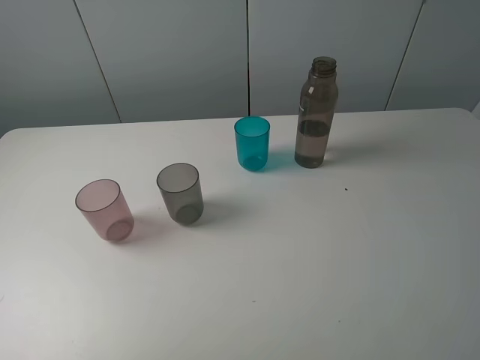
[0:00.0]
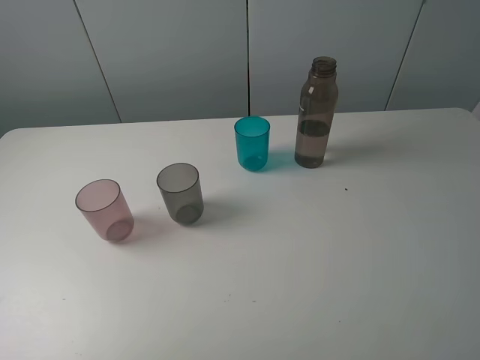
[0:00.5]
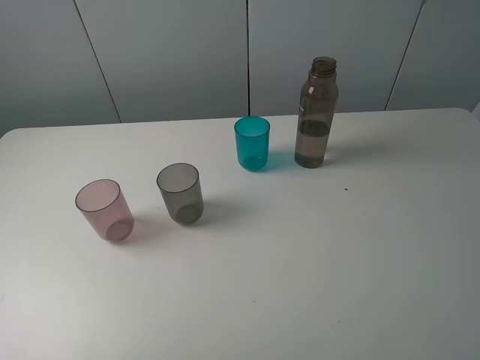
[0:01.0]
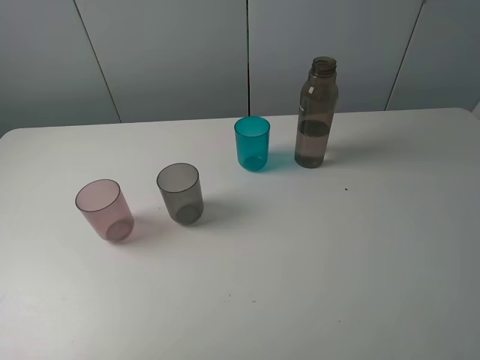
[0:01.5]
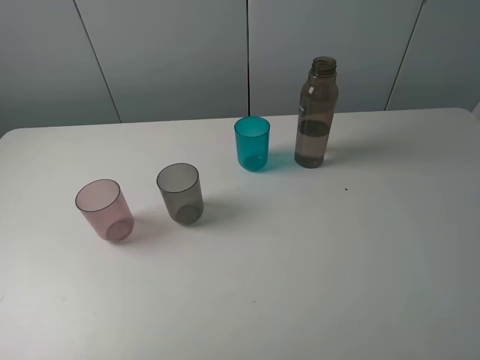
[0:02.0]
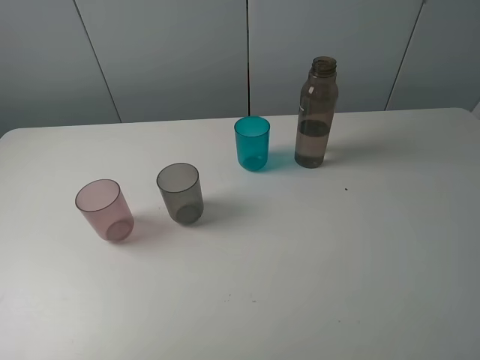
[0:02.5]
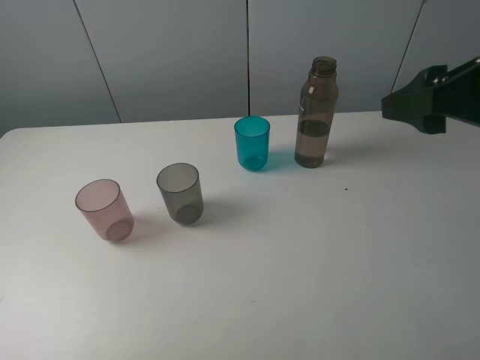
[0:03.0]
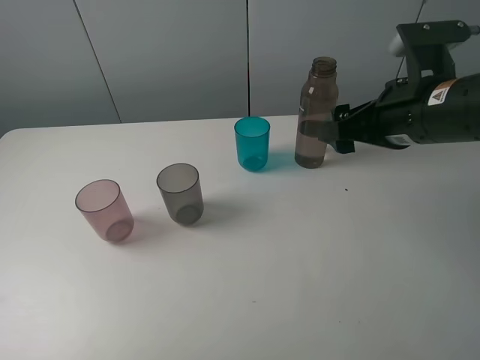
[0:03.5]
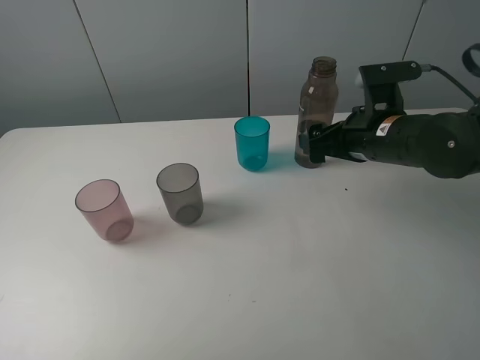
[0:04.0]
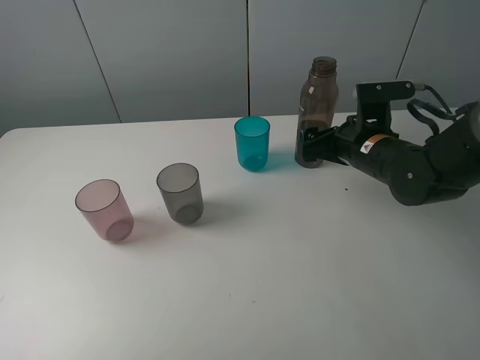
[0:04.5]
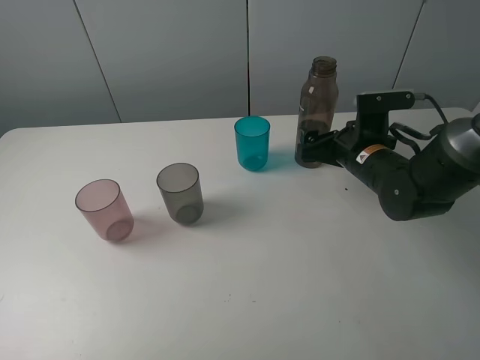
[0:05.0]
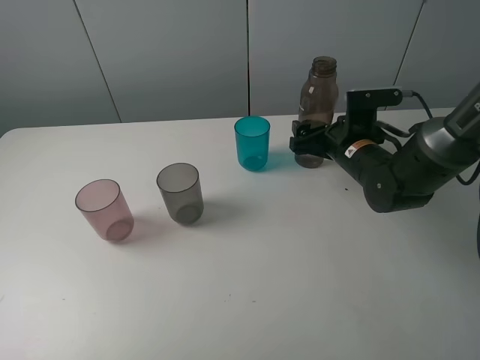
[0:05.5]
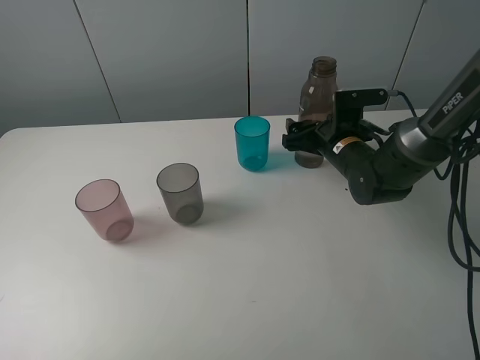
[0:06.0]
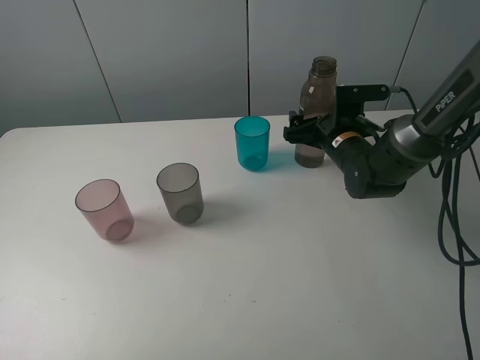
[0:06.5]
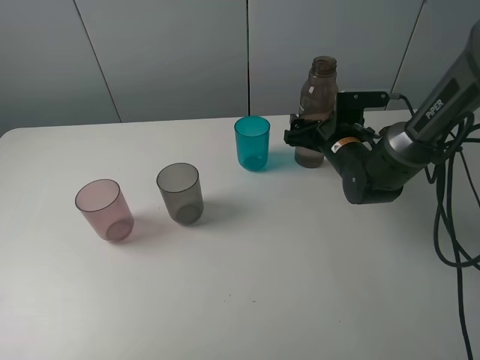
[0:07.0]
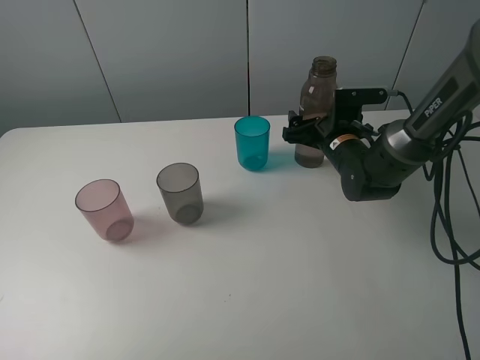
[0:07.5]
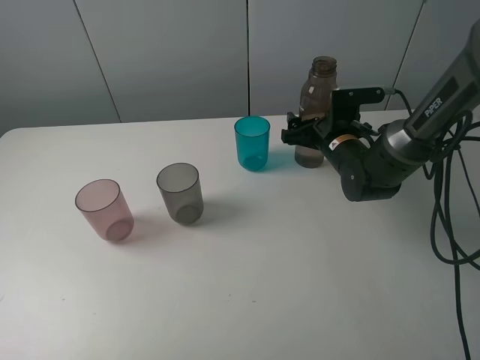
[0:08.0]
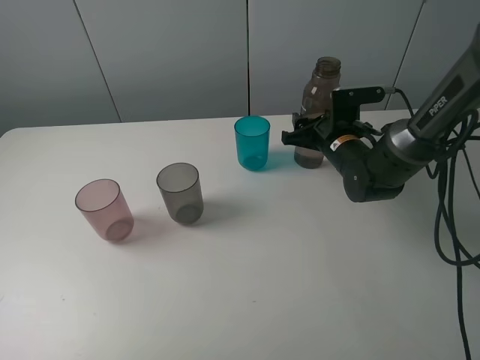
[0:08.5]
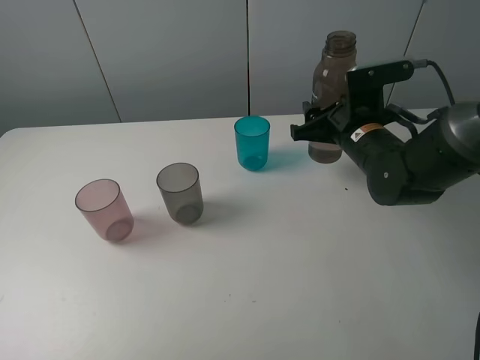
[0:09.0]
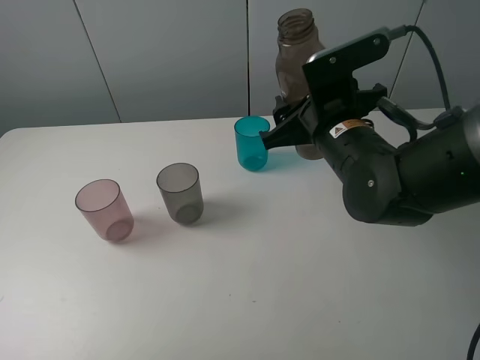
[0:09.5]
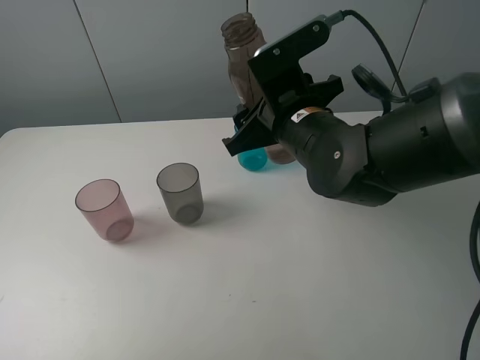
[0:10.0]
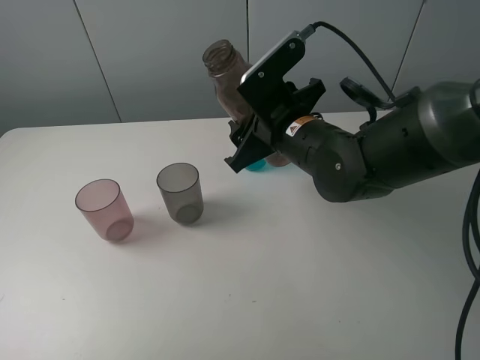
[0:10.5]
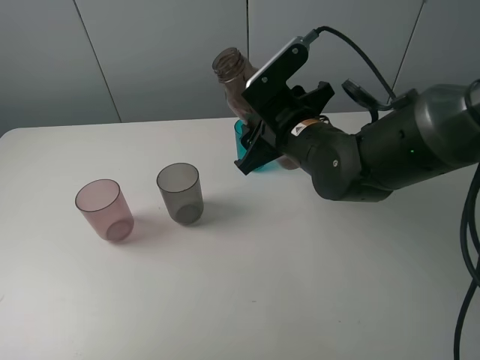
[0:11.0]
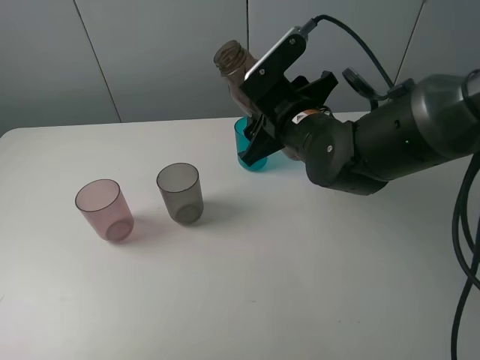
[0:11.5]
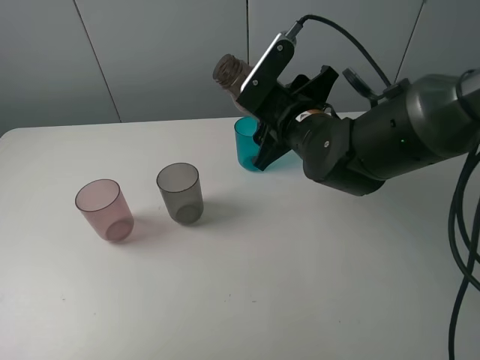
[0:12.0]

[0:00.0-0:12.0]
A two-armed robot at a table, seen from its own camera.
Task of the whole recording: pick up the bottle filled with water and pour water into the middle cup of the three cups.
Step, 0:00.0 to 0:08.0: Grasp the brown bottle with the right gripper.
0:02.0 to 0:04.0: The right gripper shifts roughly 30 cm forward, downward and to the left, and opens.
0:04.0 to 0:06.0: The right gripper goes approximately 10 cm downward and forward.
0:06.0 to 0:08.0: The grippers stay close to where they were, moving slightly.
0:08.0 to 0:10.0: The right gripper goes approximately 20 cm upward, backward and to the left, and closes its fingers.

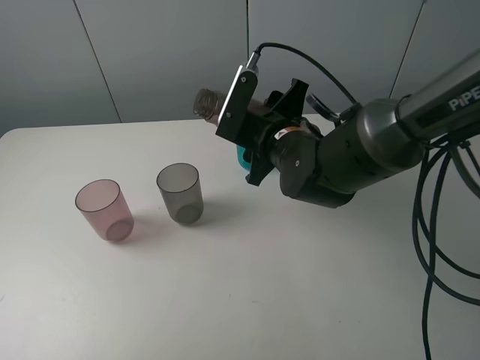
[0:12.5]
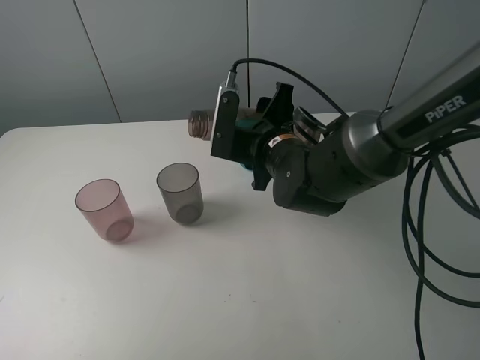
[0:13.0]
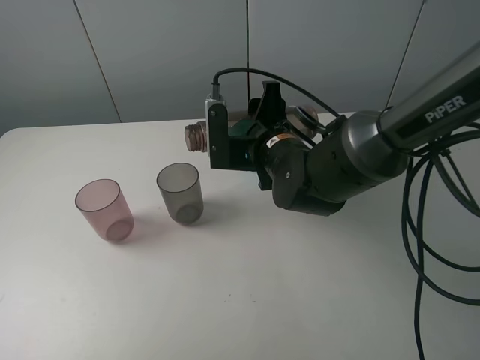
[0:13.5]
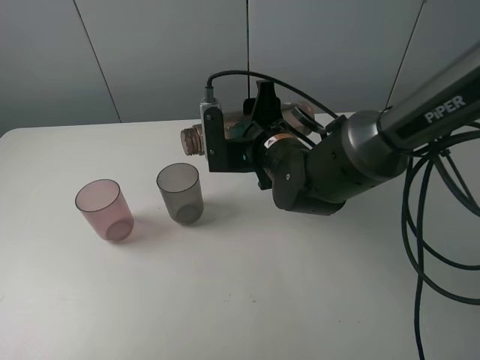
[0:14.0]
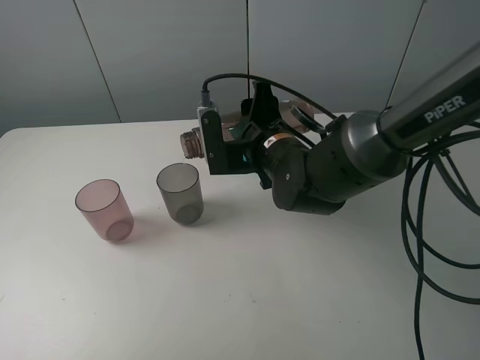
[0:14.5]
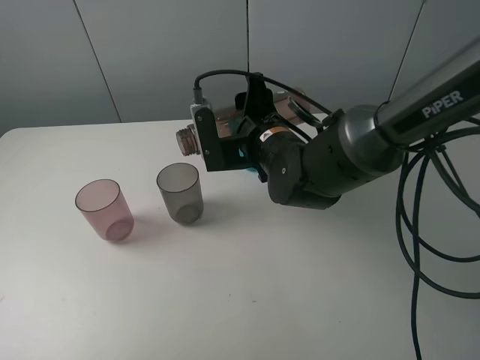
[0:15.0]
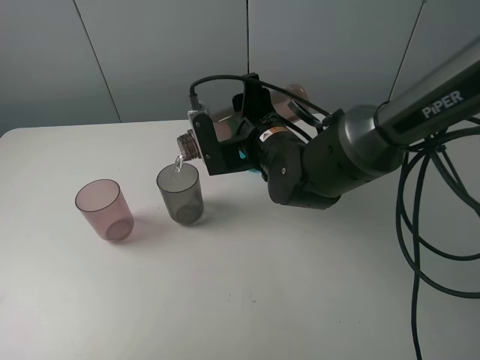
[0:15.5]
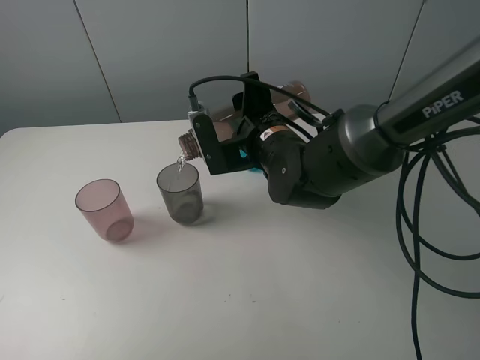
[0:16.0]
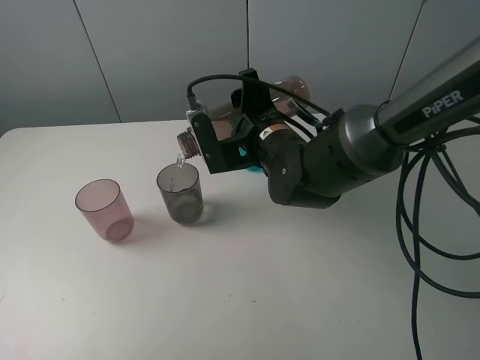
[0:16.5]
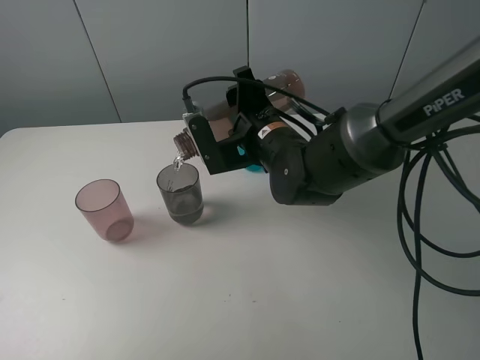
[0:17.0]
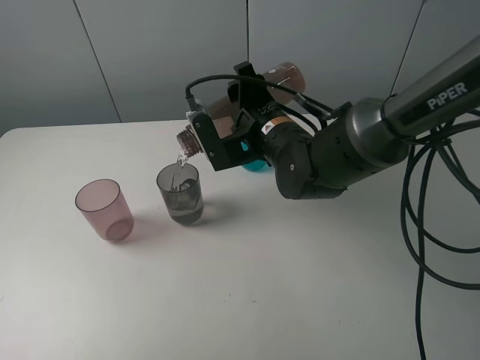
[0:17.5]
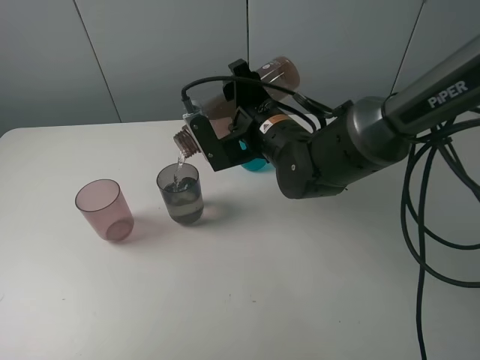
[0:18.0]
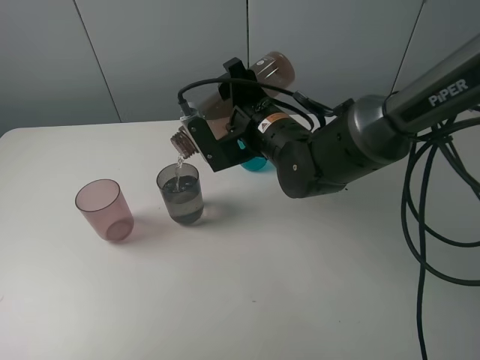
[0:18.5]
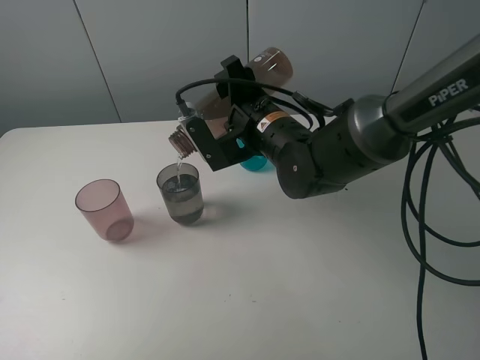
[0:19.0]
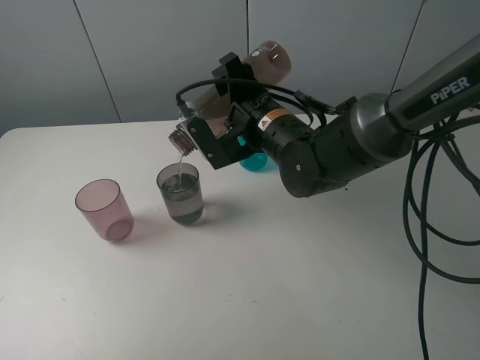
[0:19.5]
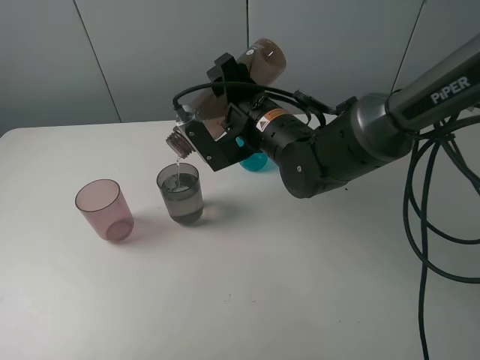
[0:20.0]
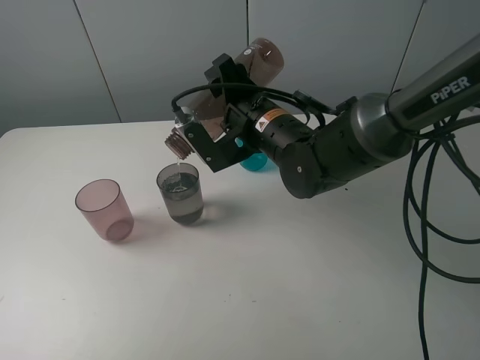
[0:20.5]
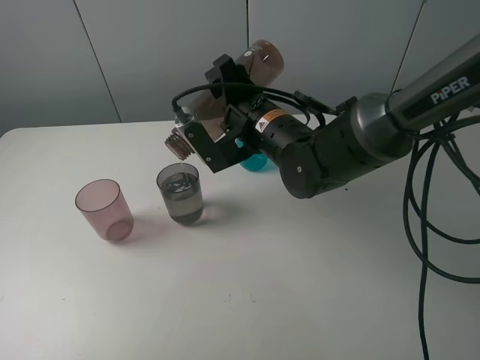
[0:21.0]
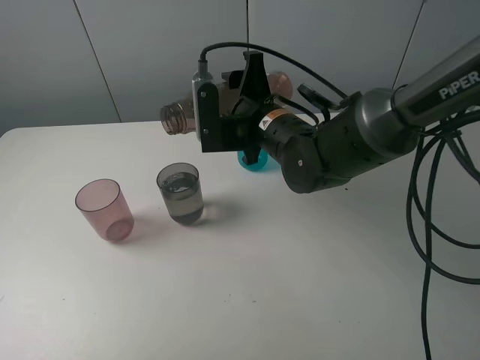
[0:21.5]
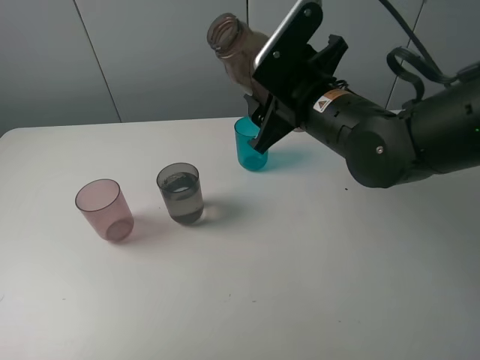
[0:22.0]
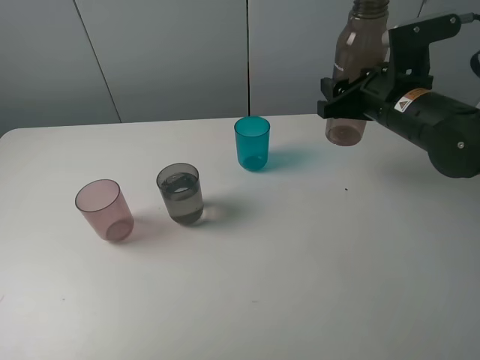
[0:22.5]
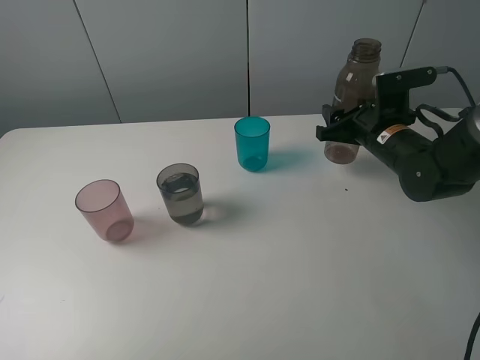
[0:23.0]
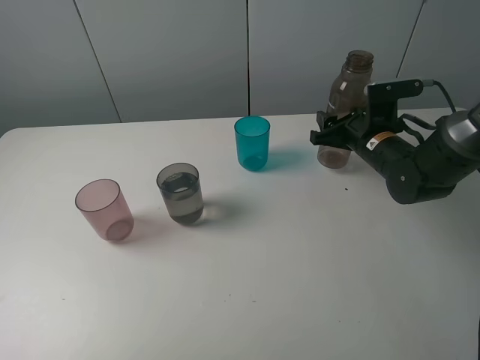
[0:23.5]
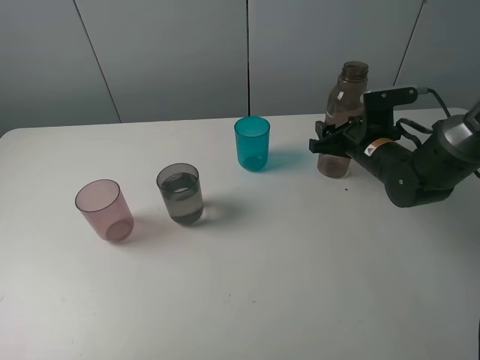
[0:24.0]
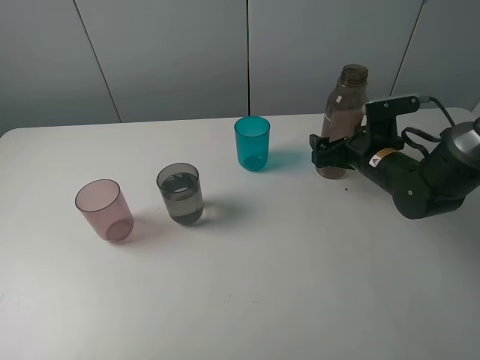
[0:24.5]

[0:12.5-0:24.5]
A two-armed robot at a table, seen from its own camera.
Task of the whole recording: pick up the bottle filled with water and pour water into the middle cup of the three cups.
0:14.5 to 0:16.5: The grippers stay close to where they were, moving slightly.
0:16.5 to 0:18.5: The grippers make only small movements.
0:18.5 to 0:20.5: The grippers stay close to where they were, moving slightly.
0:20.5 to 0:22.5: The right gripper is displaced to the right by about 15 cm.
0:22.5 to 0:24.5: The right gripper travels downward by roughly 10 cm, and opens up.

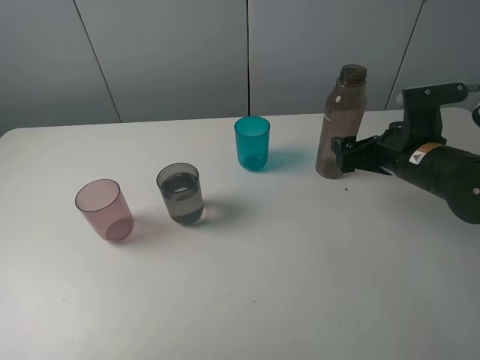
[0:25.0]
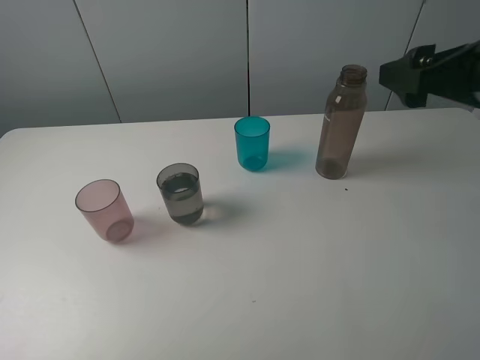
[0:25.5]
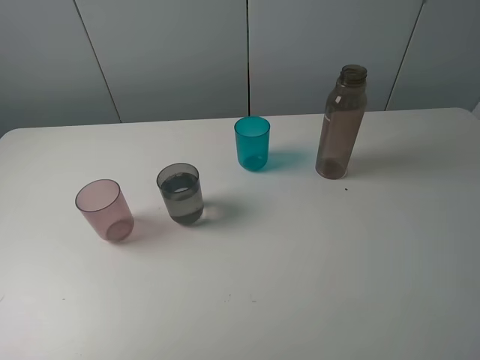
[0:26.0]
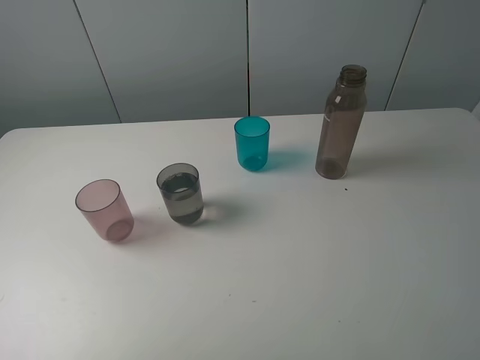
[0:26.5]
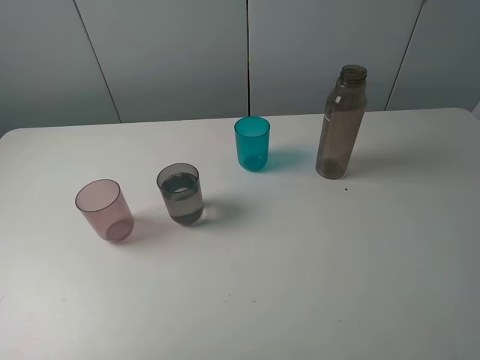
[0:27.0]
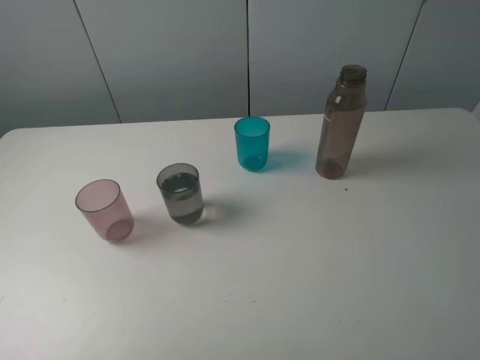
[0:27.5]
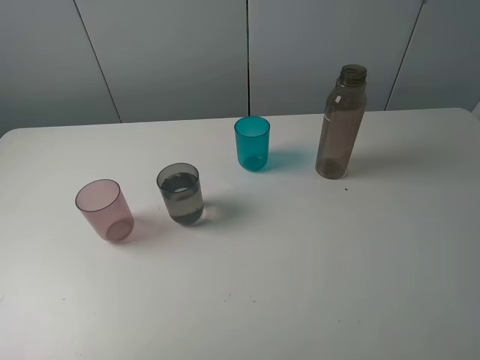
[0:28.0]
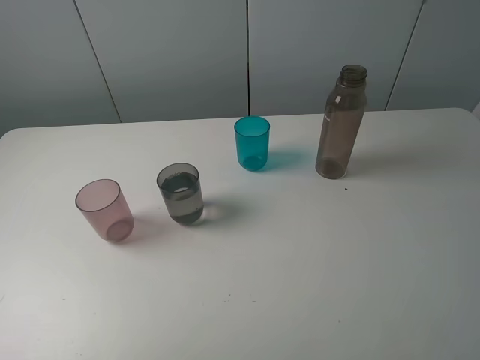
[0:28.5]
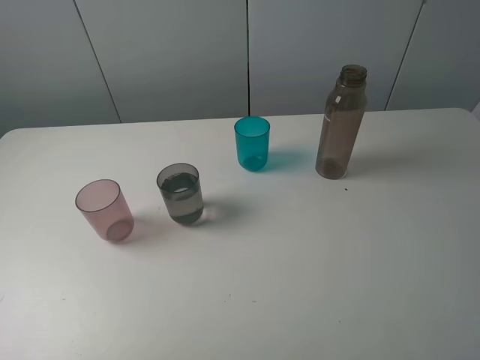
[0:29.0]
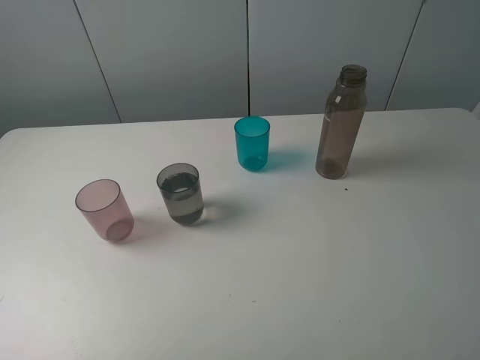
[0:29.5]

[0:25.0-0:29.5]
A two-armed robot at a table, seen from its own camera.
Task of the whole recording: pick up the bottle filled with water and pour water into the middle cup of the three cups.
0:25.0 to 0:27.0: The right gripper goes about 30 cm backward and upward.
